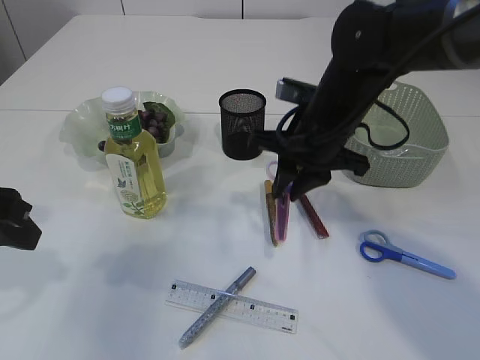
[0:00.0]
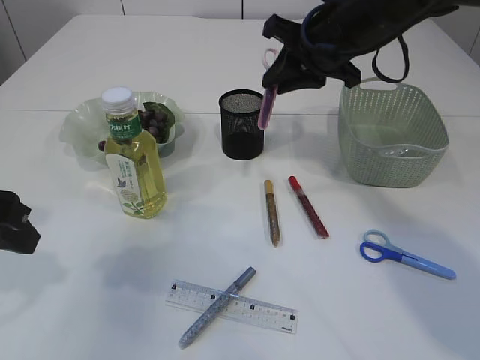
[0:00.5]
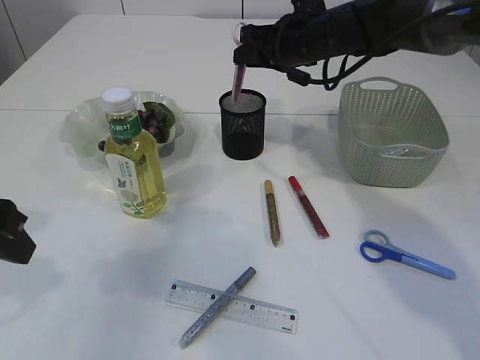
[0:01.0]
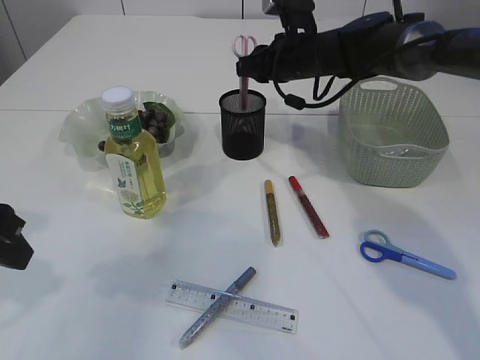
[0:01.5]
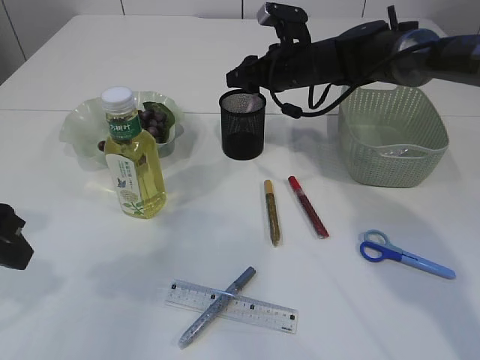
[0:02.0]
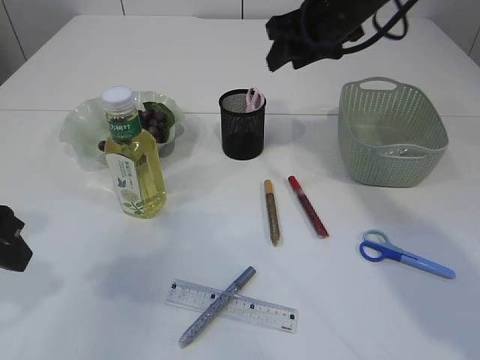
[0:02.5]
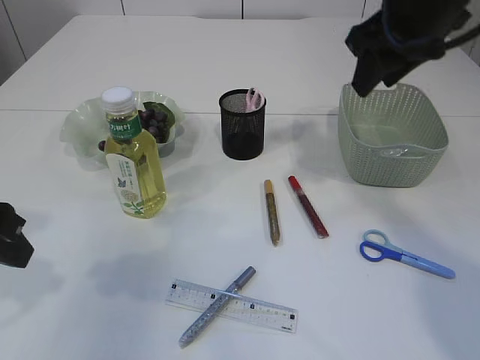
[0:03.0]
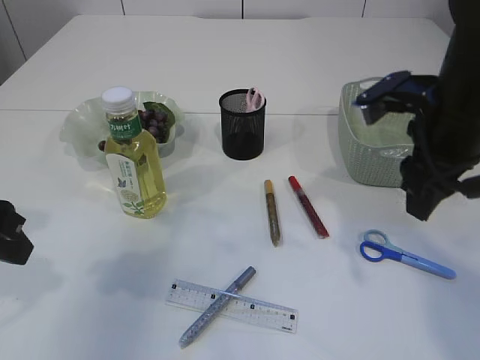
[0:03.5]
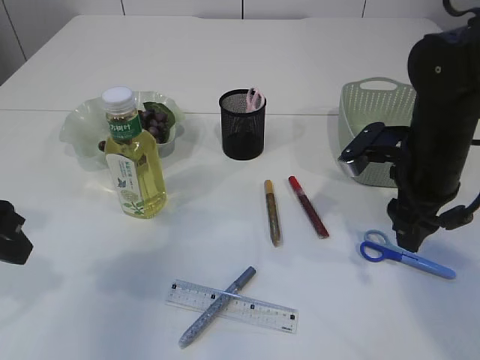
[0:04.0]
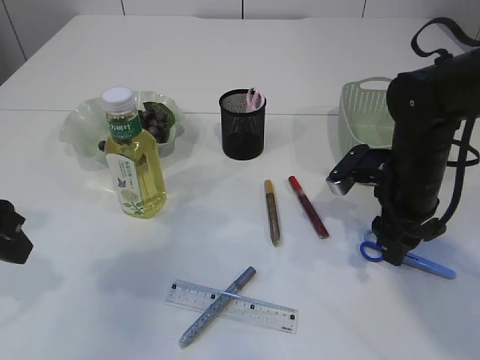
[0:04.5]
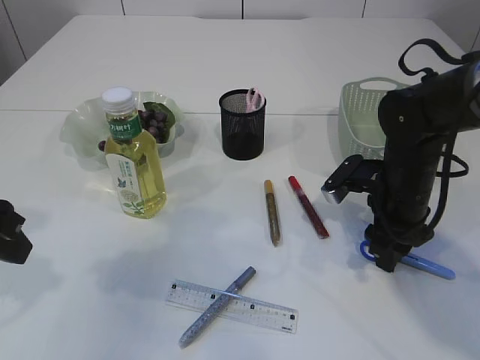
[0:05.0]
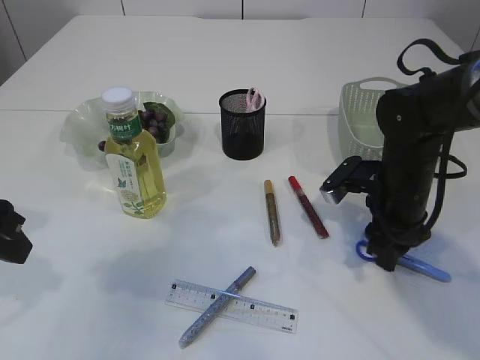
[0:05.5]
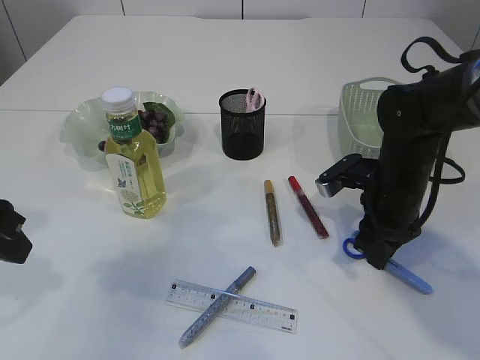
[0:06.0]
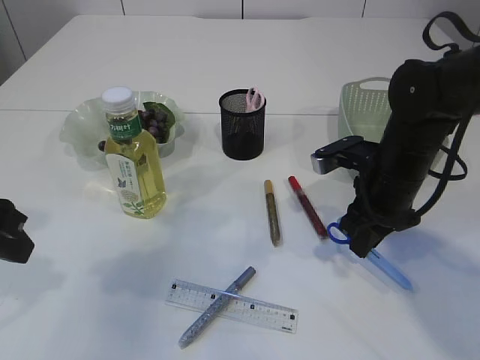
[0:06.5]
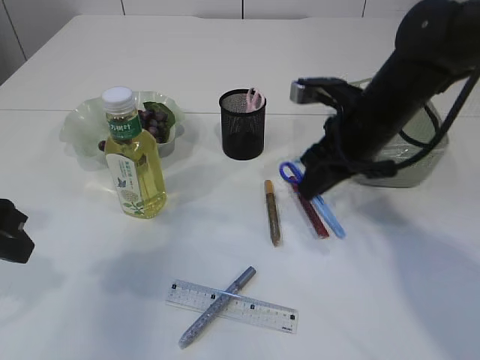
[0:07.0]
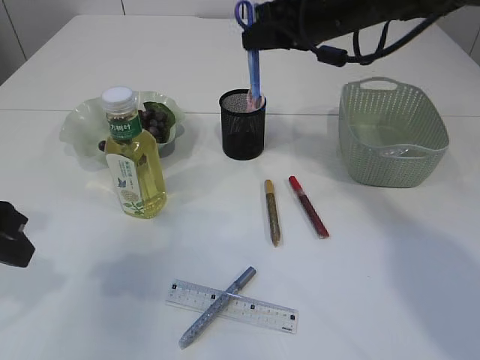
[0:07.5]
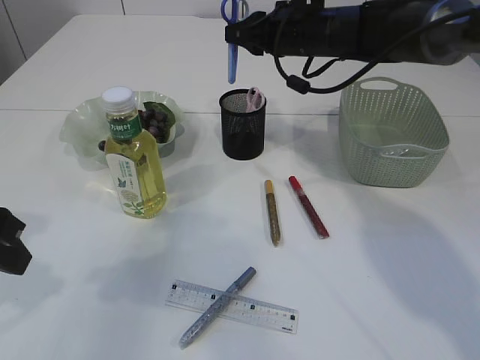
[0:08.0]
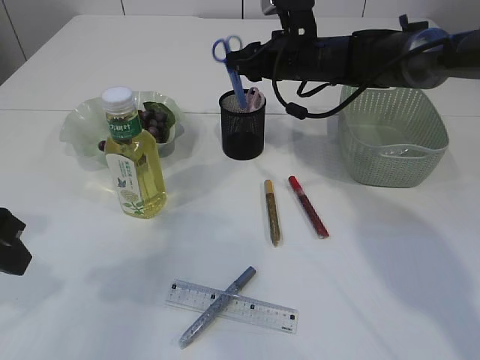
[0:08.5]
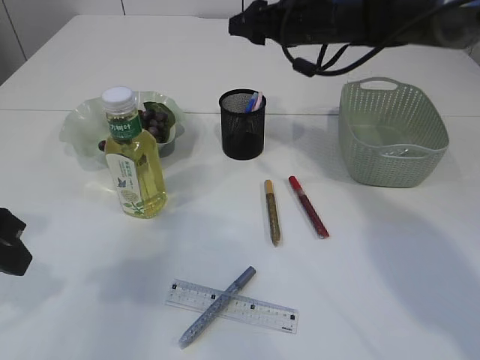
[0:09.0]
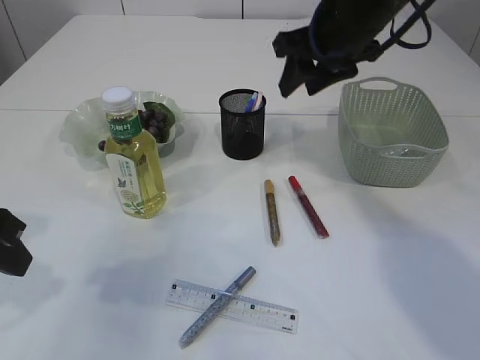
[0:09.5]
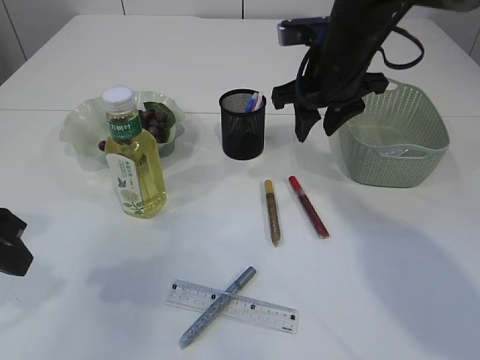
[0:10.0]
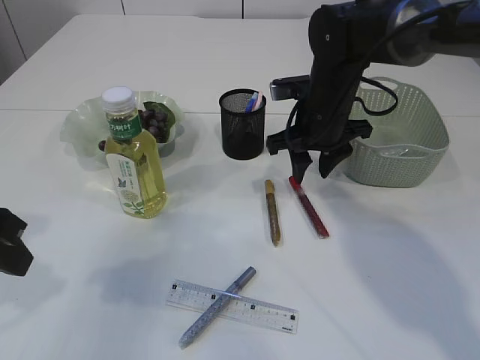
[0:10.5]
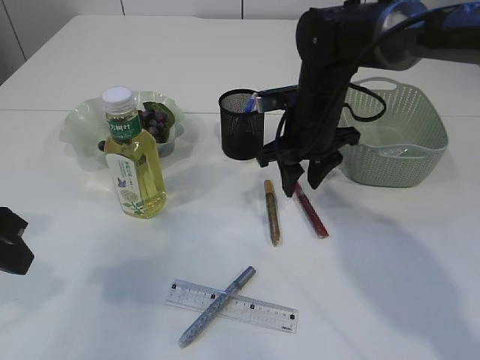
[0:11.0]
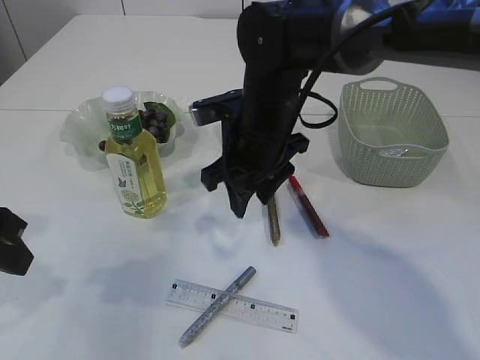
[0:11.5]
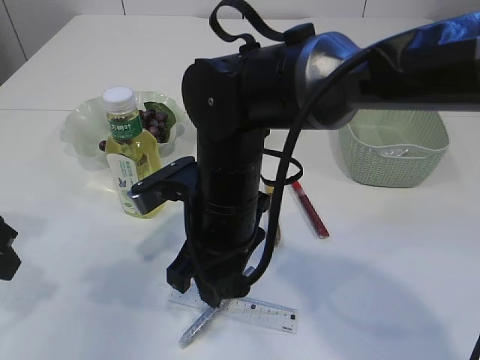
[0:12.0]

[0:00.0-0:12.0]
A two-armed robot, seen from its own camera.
Step, 0:00.5 to 0:02.0: Place the pink scissors into the pen holder.
Step, 0:02.5 to 0:06.5: pick up the blue scissors.
Step, 0:07.0 to 0:08.5: Place the blue scissors into the pen holder.
0:00.0 to 0:02.0: The right gripper heads forward, covering some 15 cm, and opens up.
0:02.0 to 0:04.0: The right gripper shifts approximately 20 cm backward and to the right.
0:04.0 to 0:06.0: The right gripper moves downward, some 5 cm, and closes.
0:06.0 to 0:08.0: The right gripper heads forward, upward and to the left, covering roughly 20 cm.
0:08.0 to 0:10.0: The right gripper goes about 10 cm backward, and opens its fingers.
0:10.0 to 0:12.0: The right gripper shifts about 20 cm to the left, backward and downward.

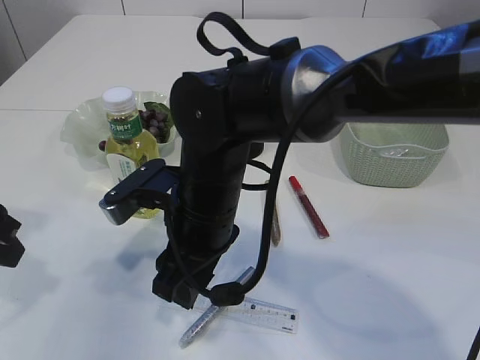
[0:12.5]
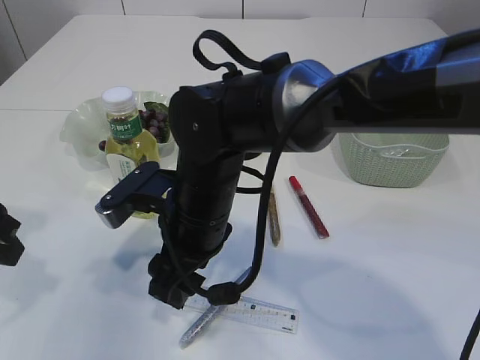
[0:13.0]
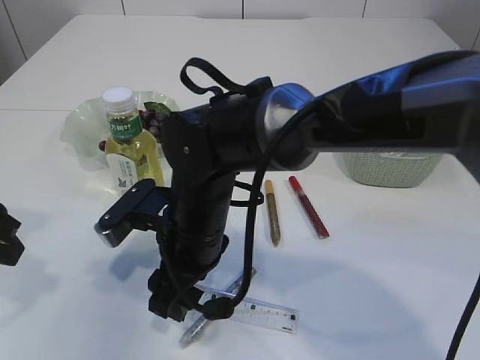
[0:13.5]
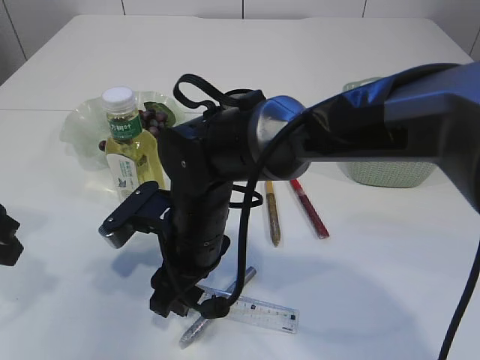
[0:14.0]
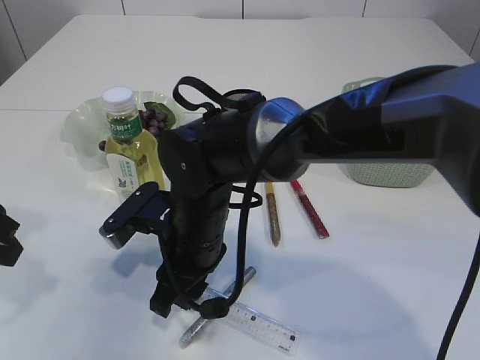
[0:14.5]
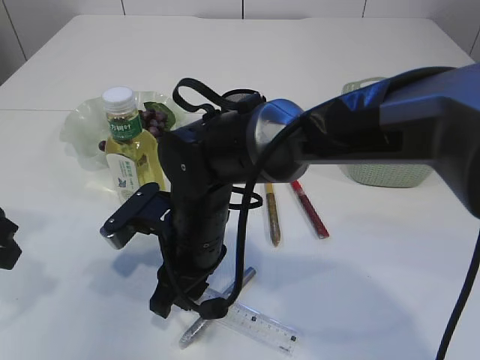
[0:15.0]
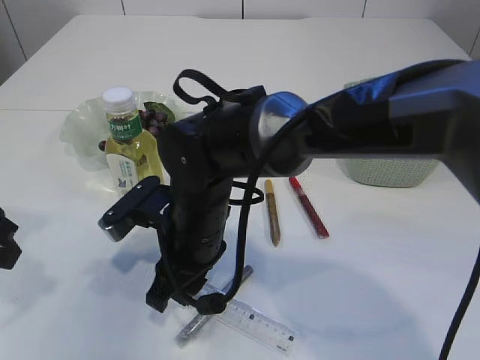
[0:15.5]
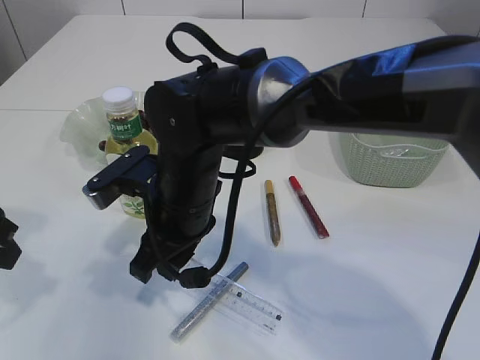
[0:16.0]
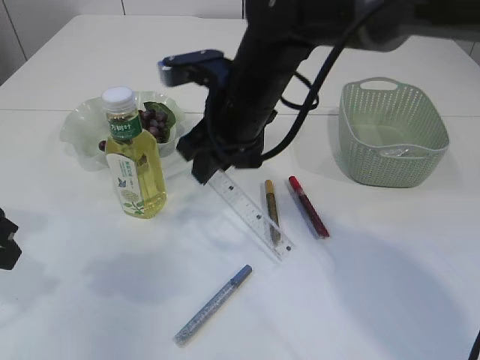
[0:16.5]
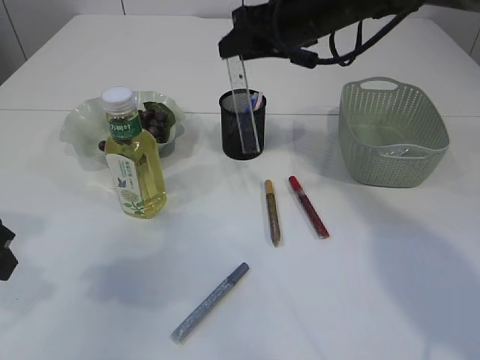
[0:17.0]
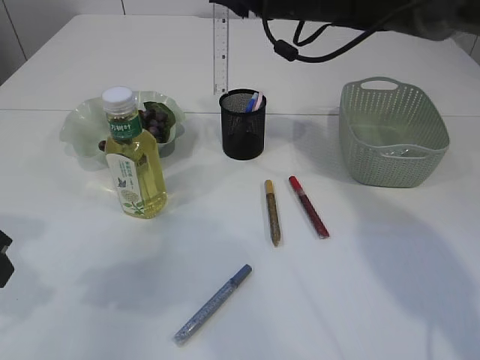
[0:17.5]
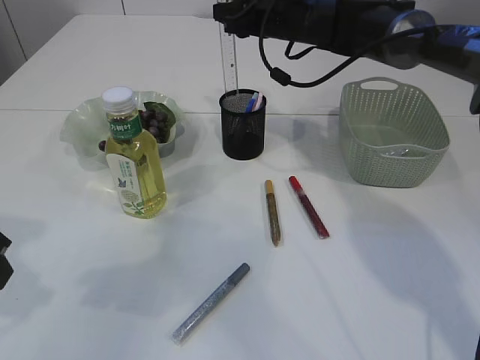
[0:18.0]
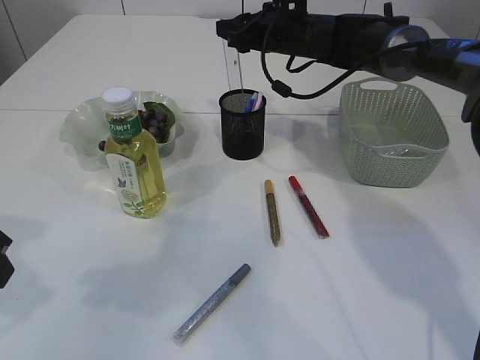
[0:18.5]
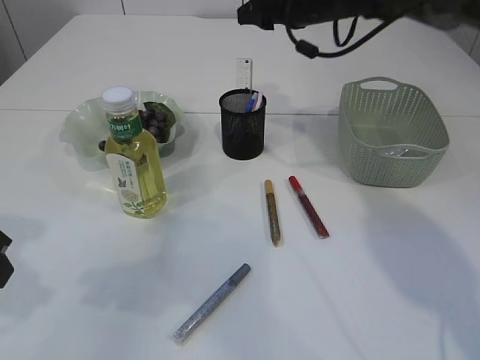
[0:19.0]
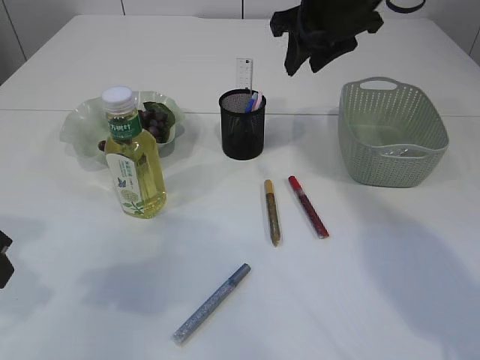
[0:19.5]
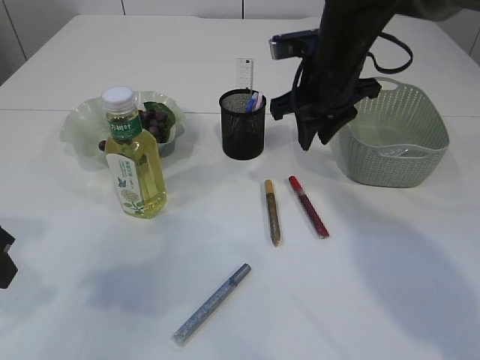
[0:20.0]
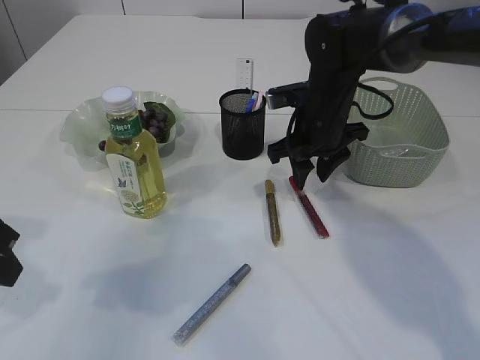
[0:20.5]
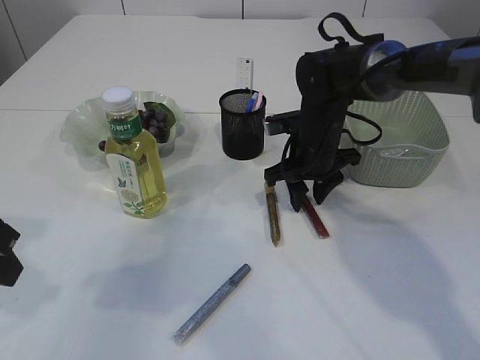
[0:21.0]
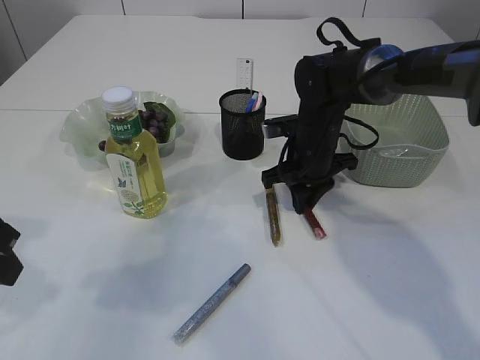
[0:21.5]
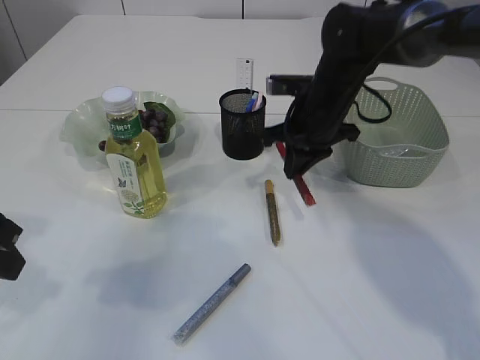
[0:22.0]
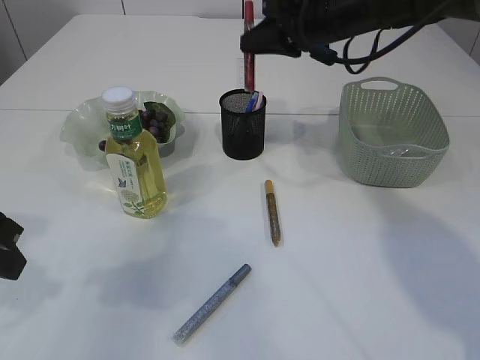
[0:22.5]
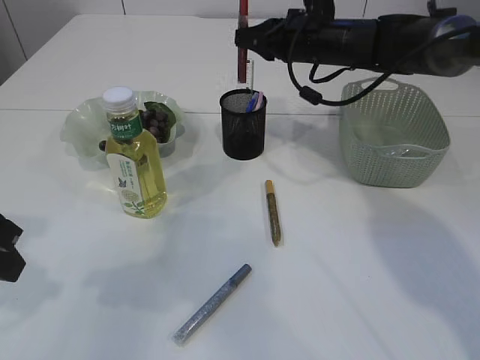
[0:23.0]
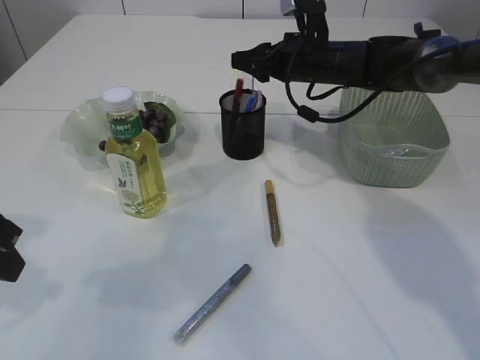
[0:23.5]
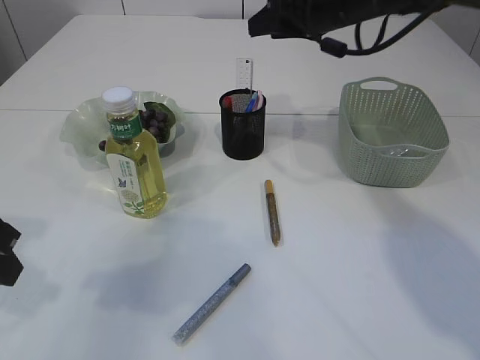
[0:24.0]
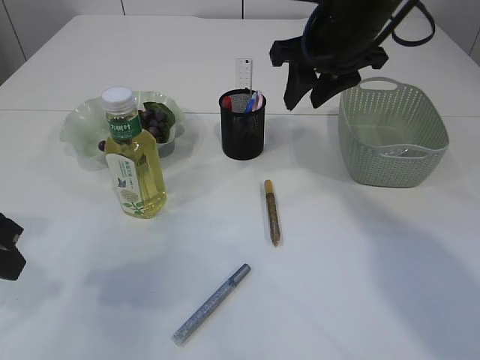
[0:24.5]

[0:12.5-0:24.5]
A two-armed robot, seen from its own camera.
Step, 0:12.5 to 0:16.0: pick up the ruler.
Step, 0:16.5 to 0:19.5: Place the ruler into the pen holder.
Step, 0:20.0 to 0:21.5: pick up the red glue.
Step, 0:22.0 to 0:23.5: place the red glue into the pen holder.
0:14.5 to 0:16.5: The right gripper is displaced upward, forward and to the right by approximately 15 cm.
0:16.5 to 0:18.5: The right gripper moves forward and to the right, roughly 20 cm.
0:18.5 to 0:20.5: The right gripper travels backward and downward by approximately 15 cm.
0:20.5 to 0:22.5: The right gripper shifts about 10 cm upward, and closes.
0:22.5 to 0:24.5: The right gripper heads backward, covering approximately 5 cm, and opens.

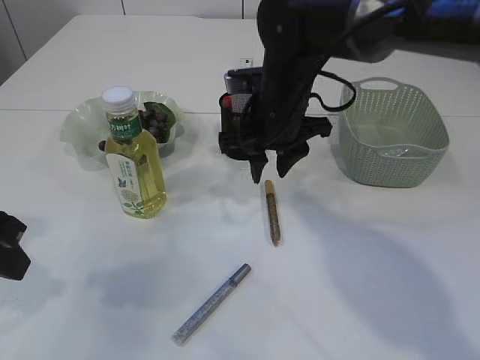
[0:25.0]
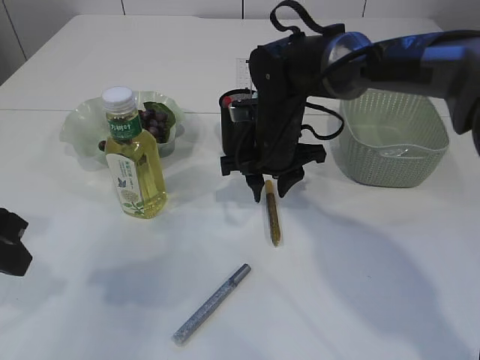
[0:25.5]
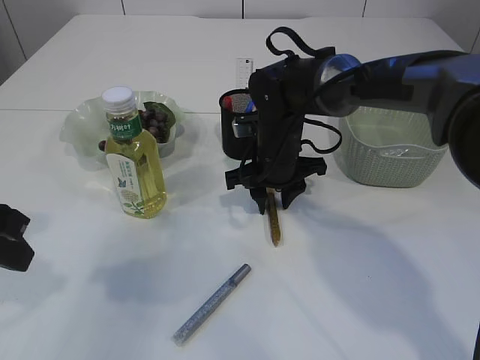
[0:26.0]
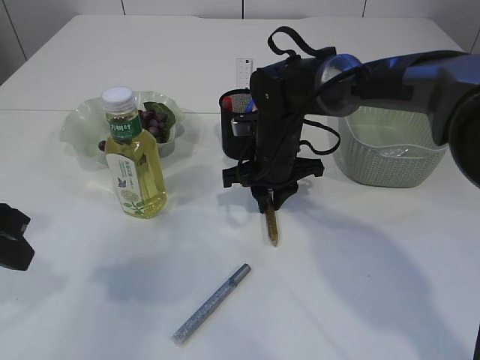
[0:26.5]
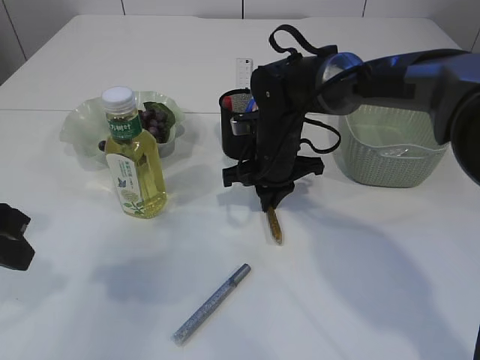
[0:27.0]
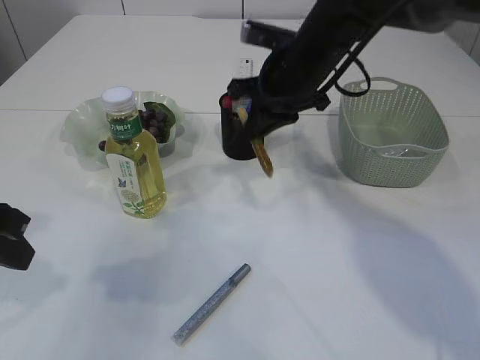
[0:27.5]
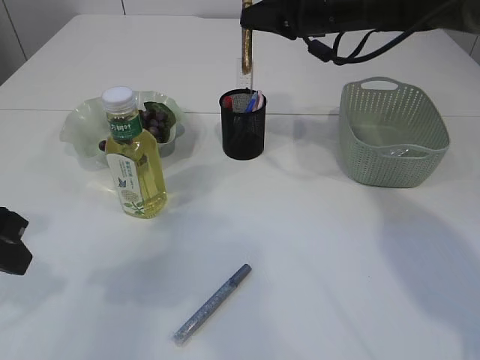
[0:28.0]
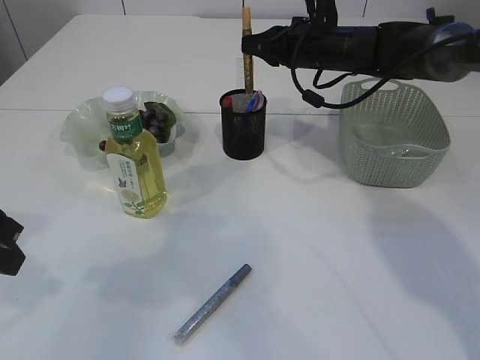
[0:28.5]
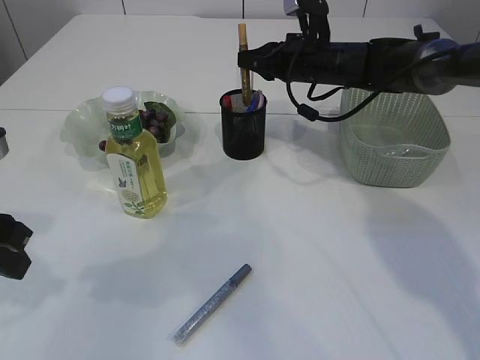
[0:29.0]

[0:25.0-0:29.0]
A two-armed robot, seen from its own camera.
Step, 0:25.0 to 0:27.0: pick up the yellow glue.
0:25.0 to 0:27.0: The right gripper is displaced downward by some 5 cm, and closes its fingers.
0:27.0 to 0:29.0: The right gripper heads forward, to the right and upward, covering approximately 15 cm.
